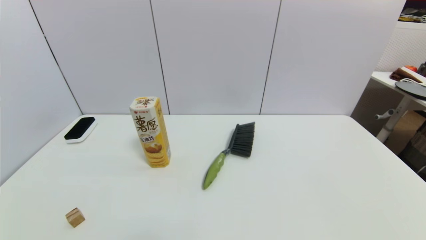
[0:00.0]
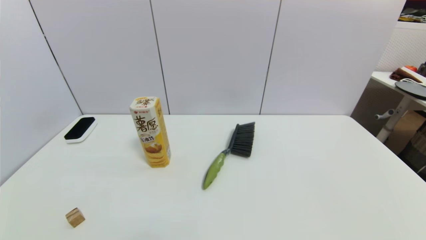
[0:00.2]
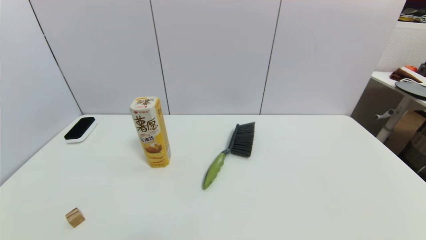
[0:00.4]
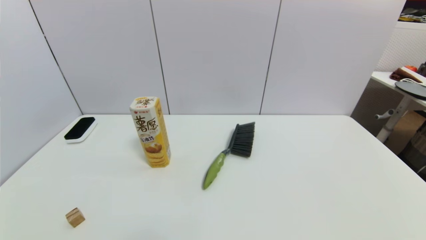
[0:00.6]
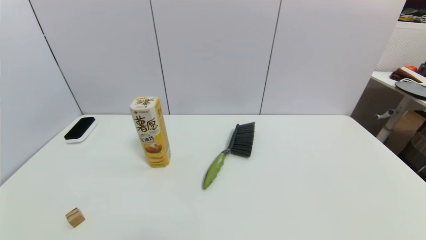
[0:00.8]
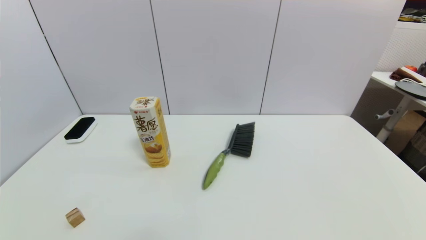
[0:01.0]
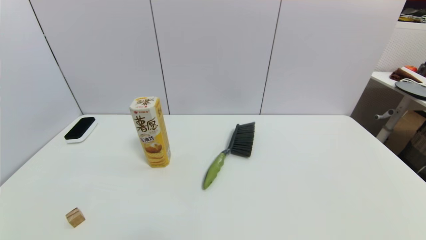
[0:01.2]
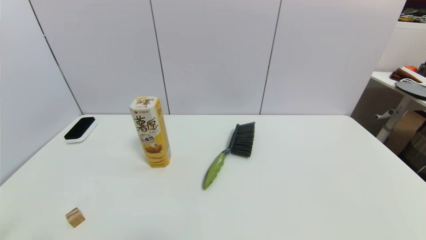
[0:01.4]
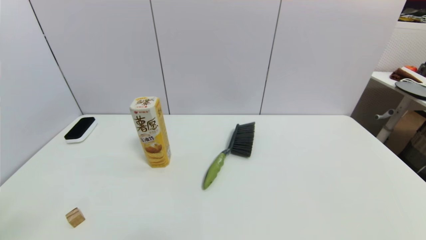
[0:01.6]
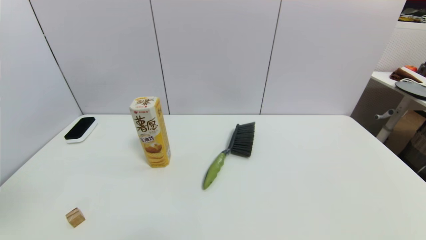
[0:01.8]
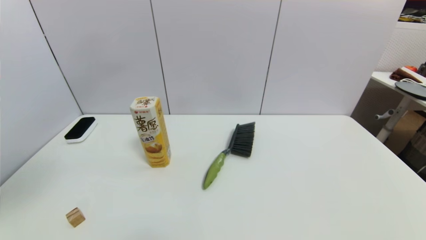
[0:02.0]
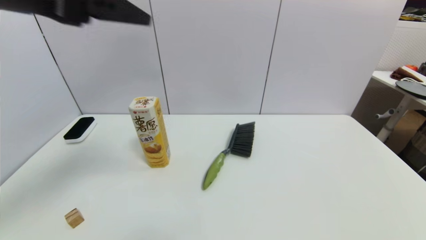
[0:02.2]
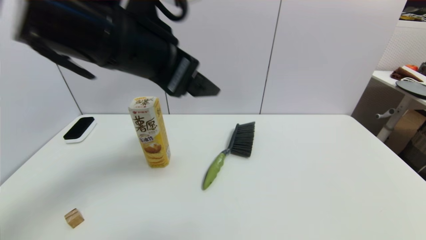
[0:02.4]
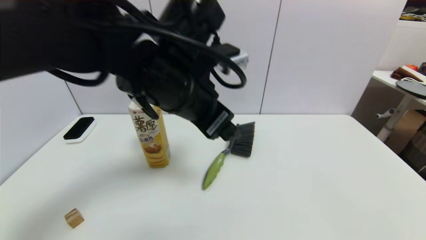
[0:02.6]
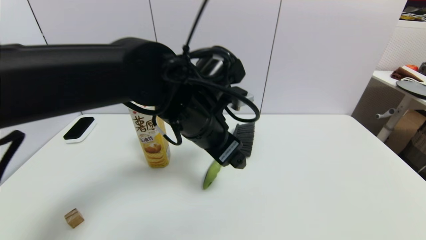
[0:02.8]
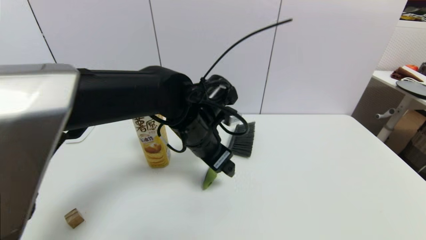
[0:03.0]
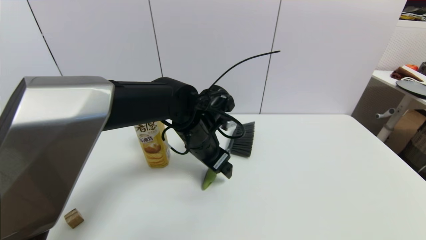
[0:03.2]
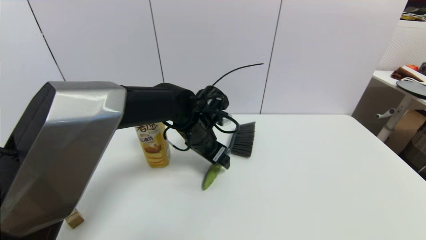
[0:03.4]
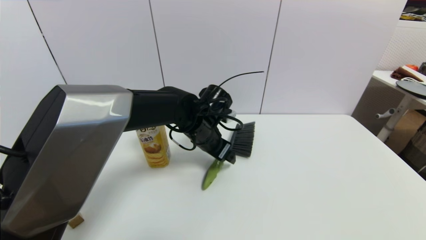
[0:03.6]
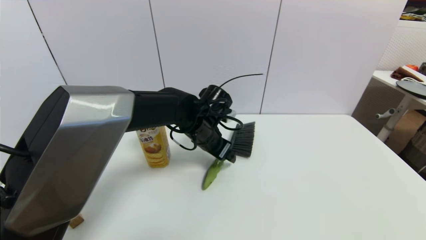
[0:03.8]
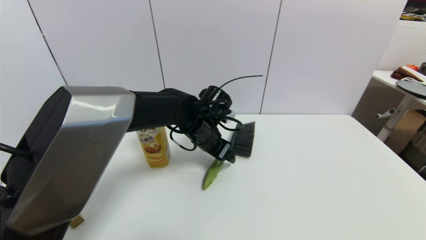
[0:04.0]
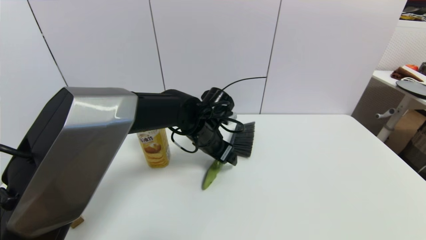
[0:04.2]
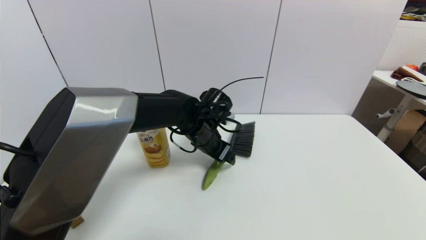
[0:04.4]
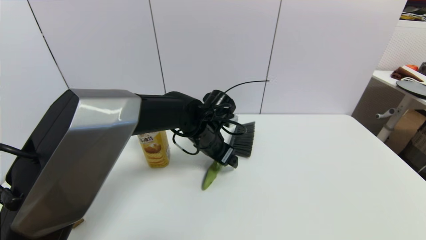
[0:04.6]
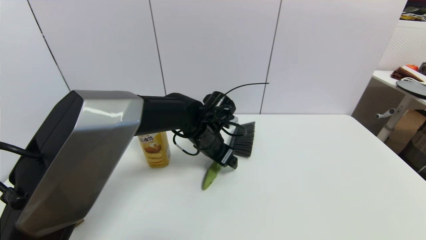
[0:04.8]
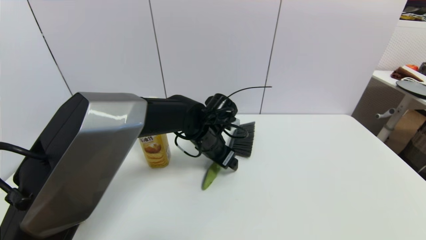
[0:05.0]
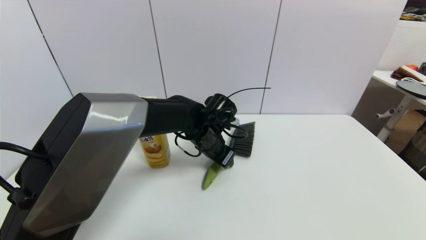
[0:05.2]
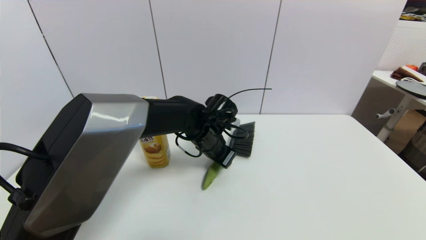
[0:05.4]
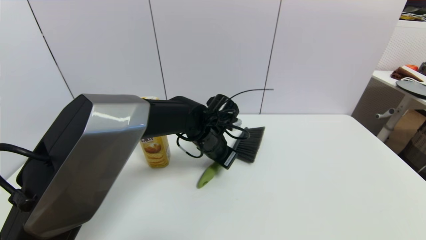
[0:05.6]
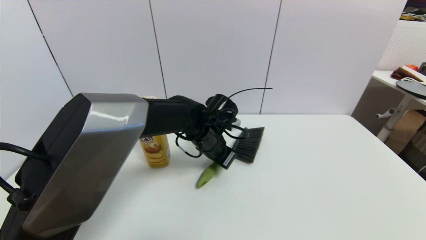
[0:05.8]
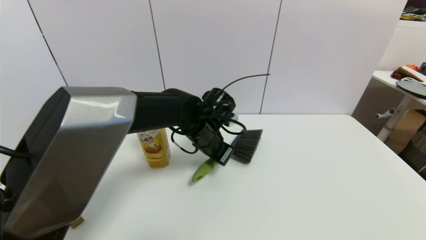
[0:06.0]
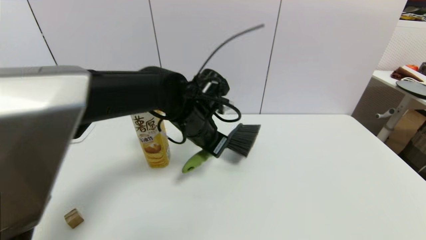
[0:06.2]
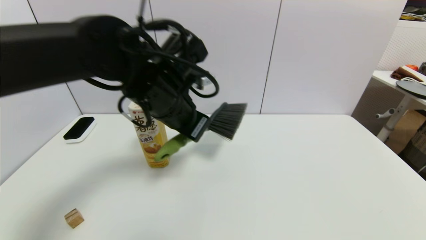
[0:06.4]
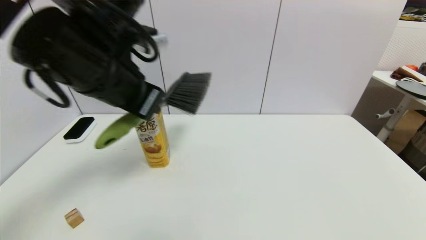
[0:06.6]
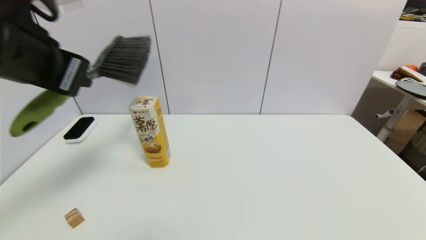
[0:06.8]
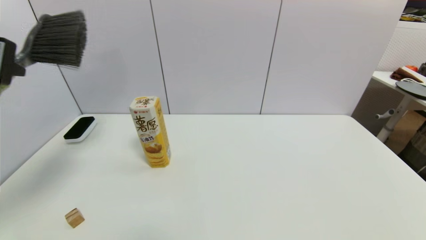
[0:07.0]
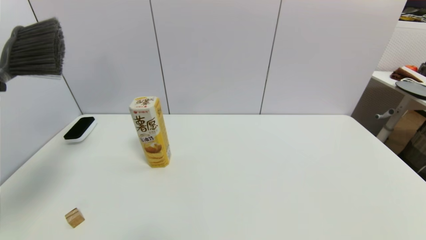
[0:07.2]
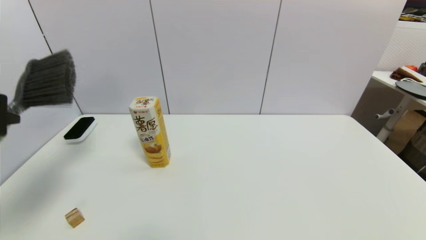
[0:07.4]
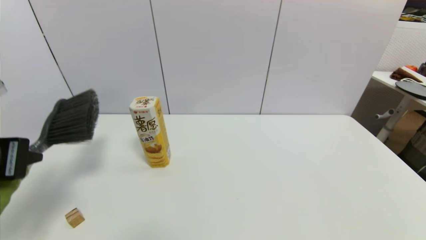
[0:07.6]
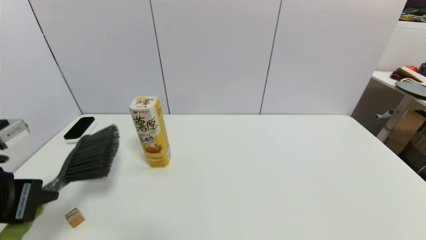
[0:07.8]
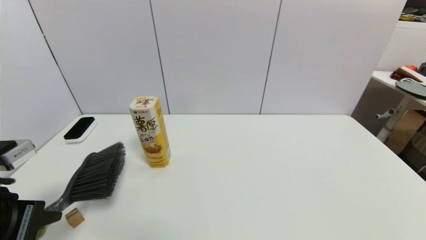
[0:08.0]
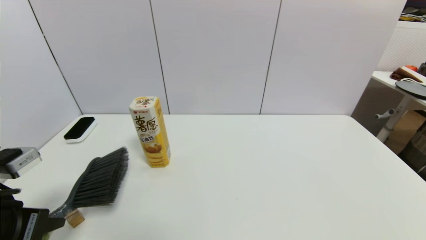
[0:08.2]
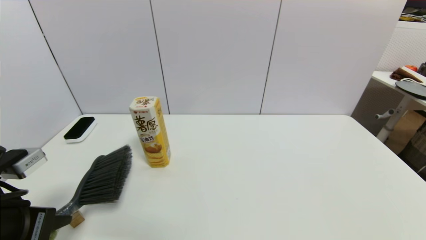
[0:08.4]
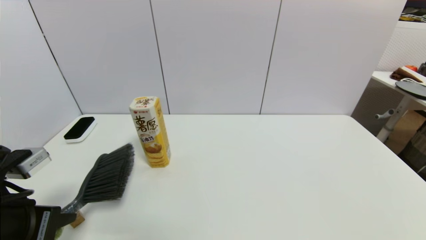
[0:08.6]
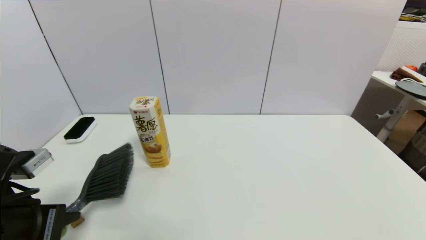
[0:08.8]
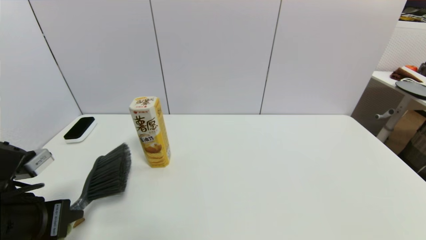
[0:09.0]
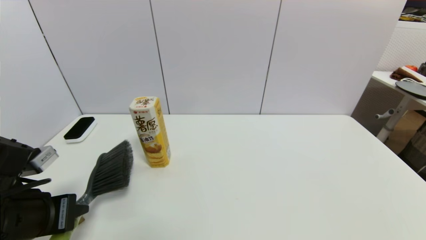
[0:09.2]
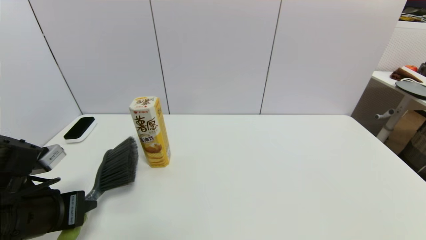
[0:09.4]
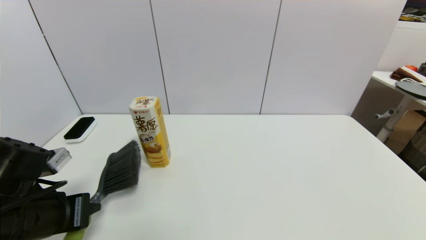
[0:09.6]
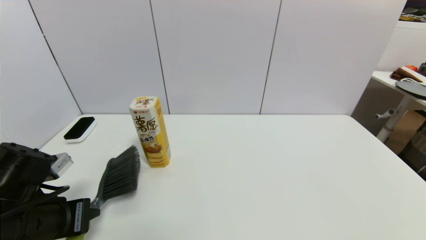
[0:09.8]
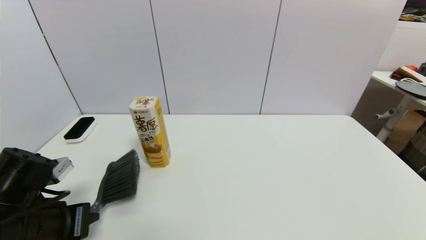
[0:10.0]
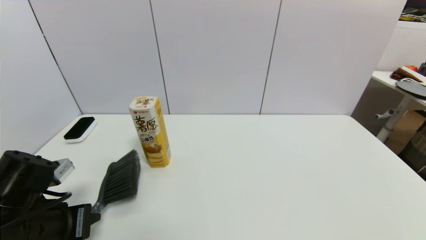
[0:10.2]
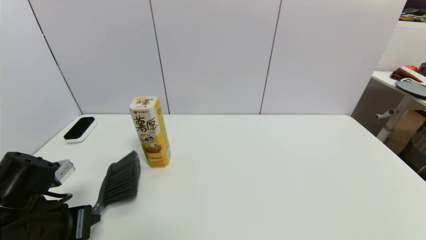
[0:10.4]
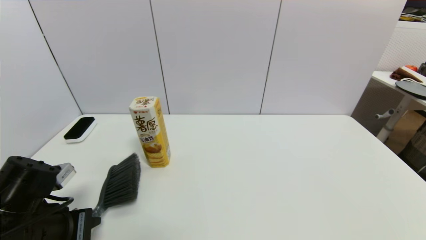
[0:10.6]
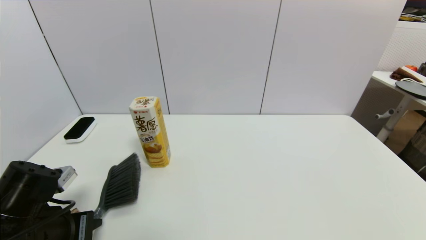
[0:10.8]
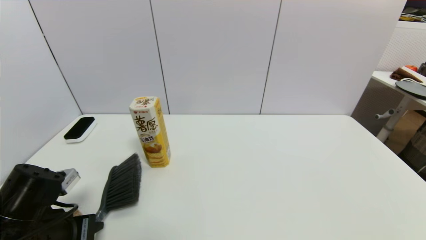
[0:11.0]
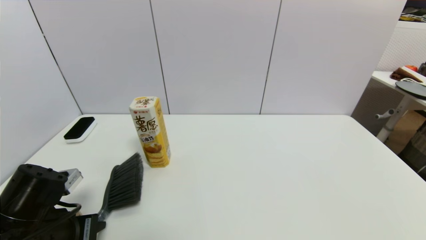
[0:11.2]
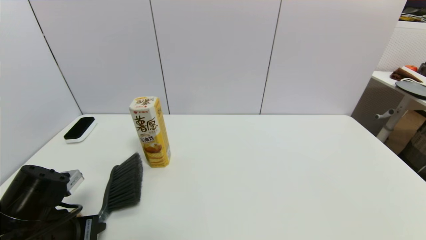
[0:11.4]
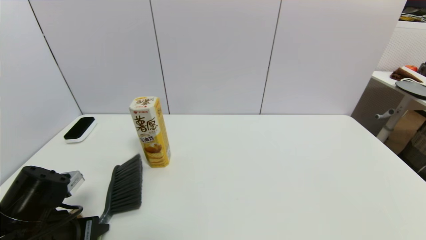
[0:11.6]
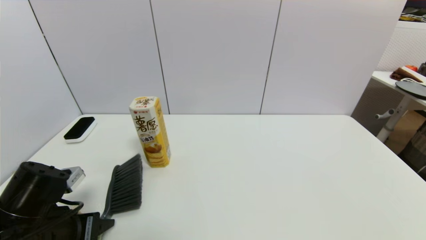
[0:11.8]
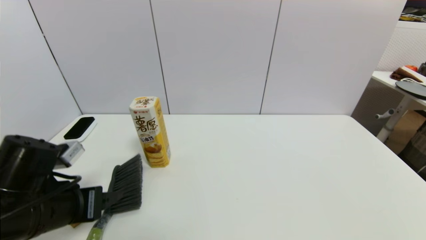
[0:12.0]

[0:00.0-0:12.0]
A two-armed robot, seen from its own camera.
Task of the whole recording: put the brush in the designated position.
Step, 0:01.0 to 0:05.4: Grasp the brush with left gripper.
Step, 0:05.8 to 0:11.8: Place the brush on the table with left gripper.
0:01.6 to 0:03.0: The left gripper travels forward, to the right and downward by about 40 cm.
0:03.0 to 0:04.4: The left gripper moves forward, roughly 5 cm.
0:04.4 to 0:06.0: The left gripper closes.
0:06.0 to 0:07.6: The left gripper travels to the left, backward and upward by roughly 35 cm.
0:07.6 to 0:09.0: The left gripper moves downward, approximately 10 cm.
0:09.0 to 0:10.4: The grippers stay close to where they were, moving slightly.
0:10.4 to 0:12.0: The left gripper opens up.

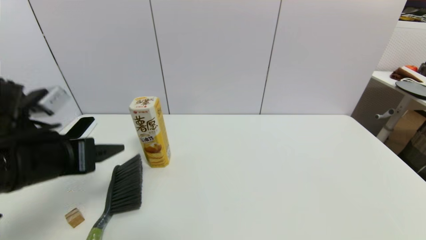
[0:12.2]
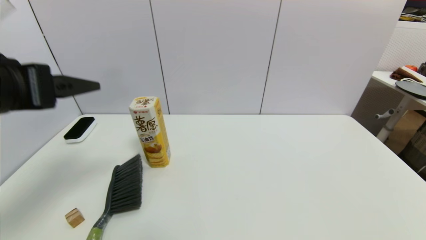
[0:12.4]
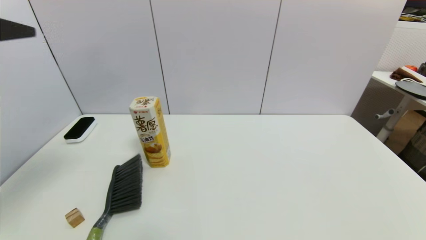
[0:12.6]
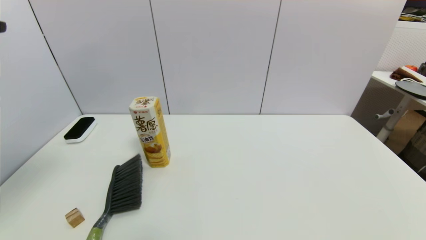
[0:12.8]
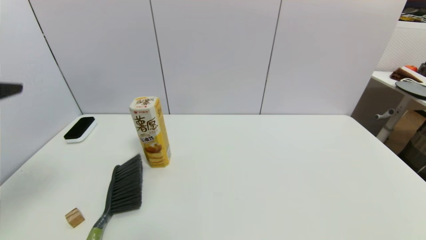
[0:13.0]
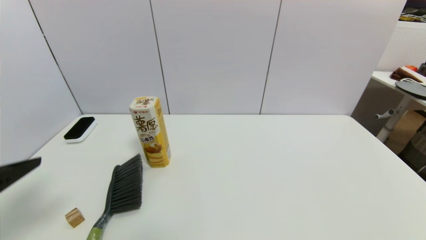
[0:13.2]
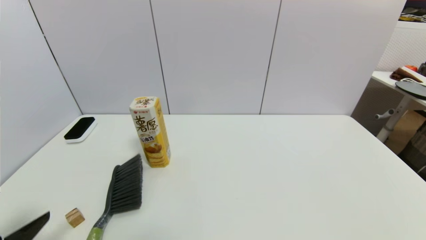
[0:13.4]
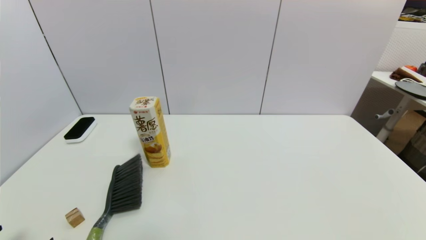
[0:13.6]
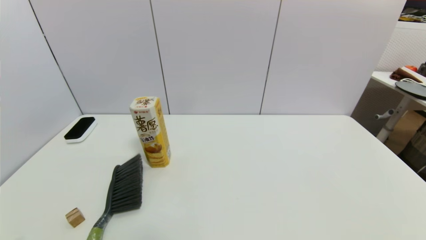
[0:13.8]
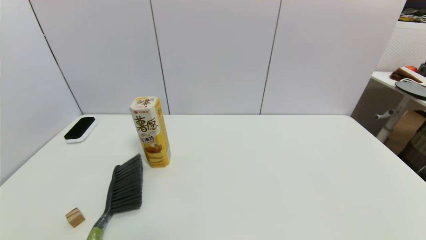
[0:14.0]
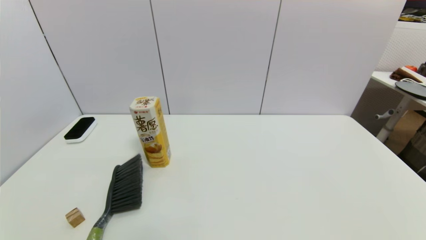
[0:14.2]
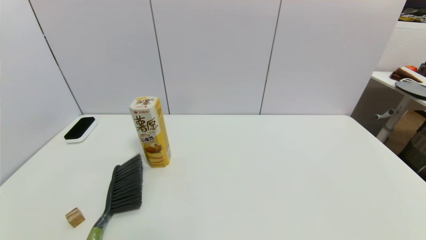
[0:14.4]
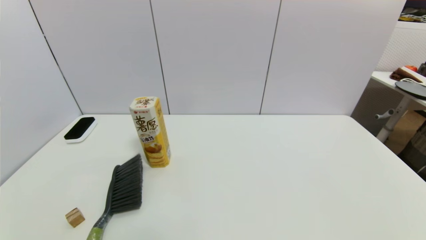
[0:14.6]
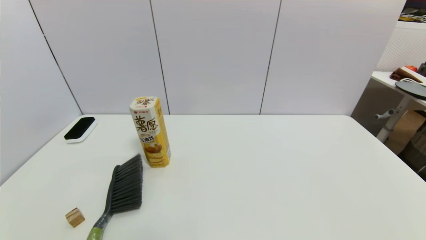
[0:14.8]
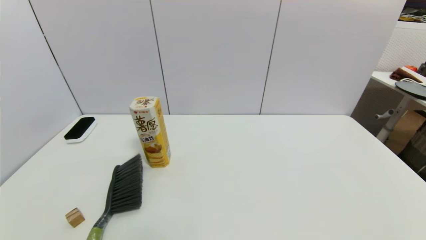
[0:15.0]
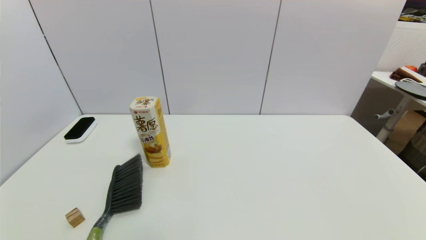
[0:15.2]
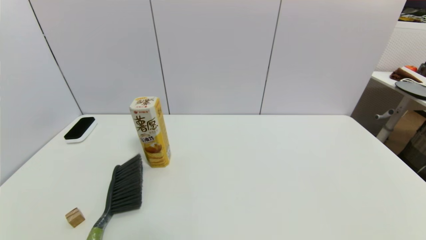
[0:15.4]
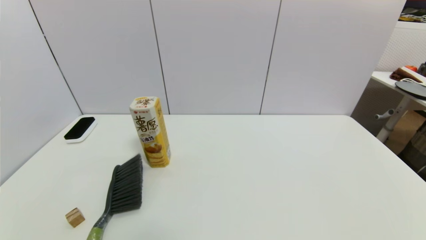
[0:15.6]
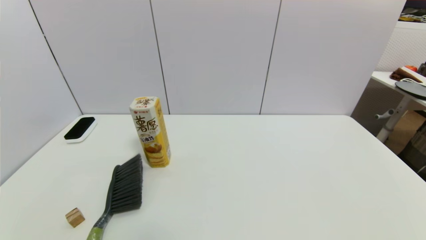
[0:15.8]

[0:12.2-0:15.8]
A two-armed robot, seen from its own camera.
Task of the whole recording: put the brush in the designated position.
0:12.2 to 0:14.0: The left gripper shifts some 25 cm backward and downward.
